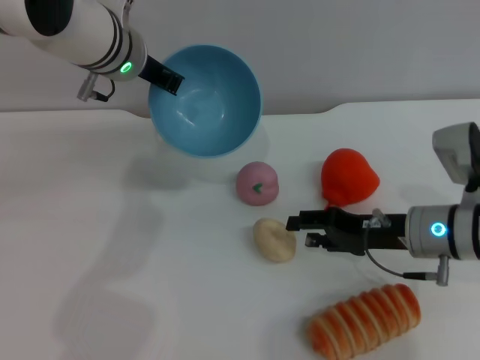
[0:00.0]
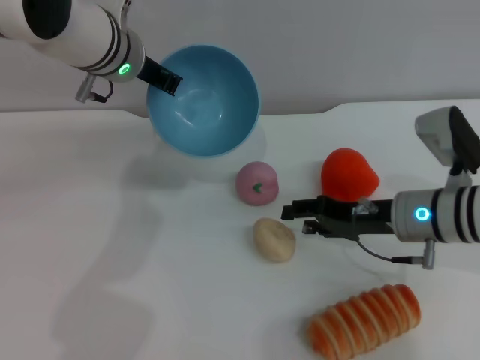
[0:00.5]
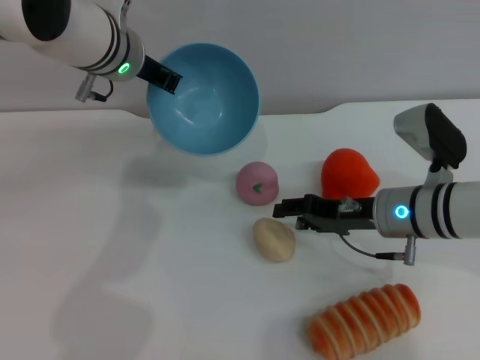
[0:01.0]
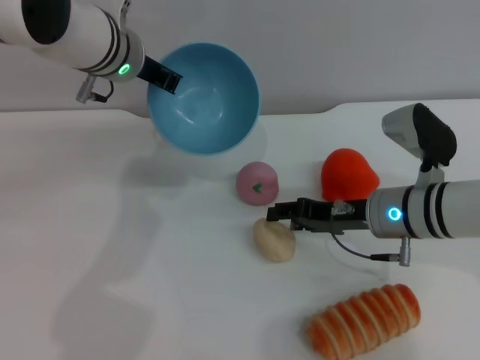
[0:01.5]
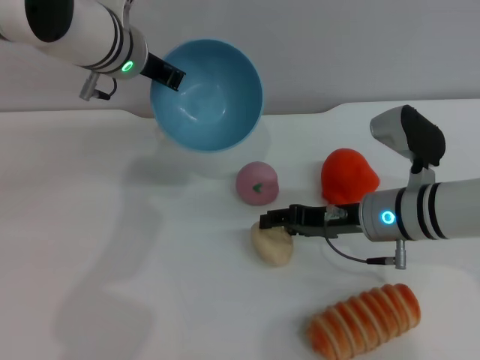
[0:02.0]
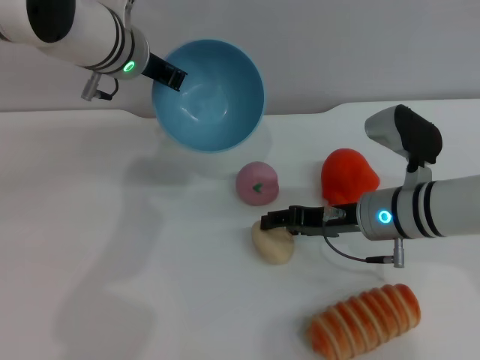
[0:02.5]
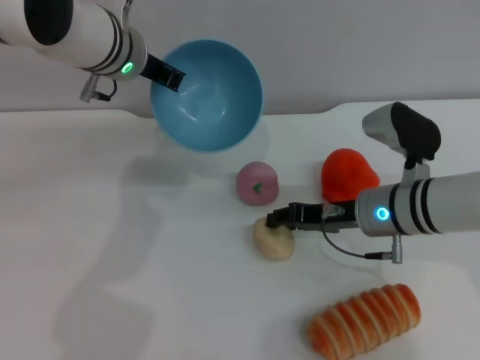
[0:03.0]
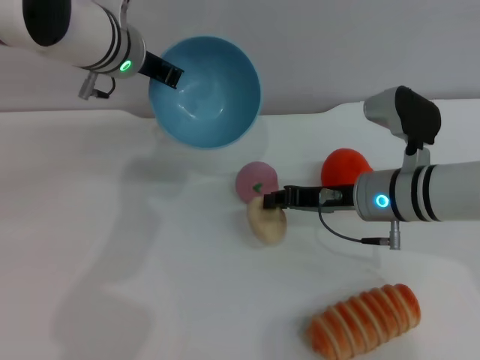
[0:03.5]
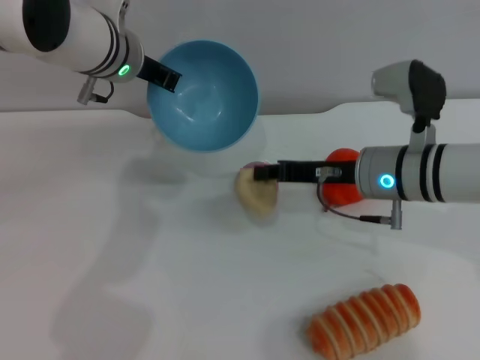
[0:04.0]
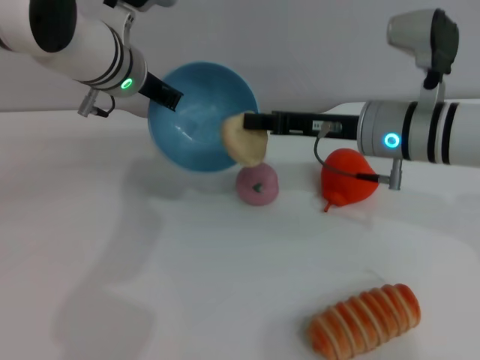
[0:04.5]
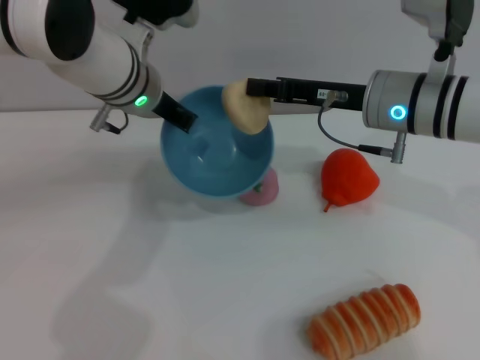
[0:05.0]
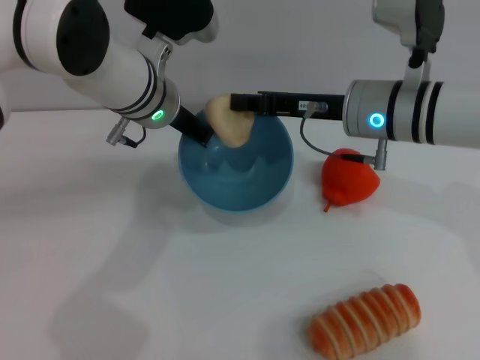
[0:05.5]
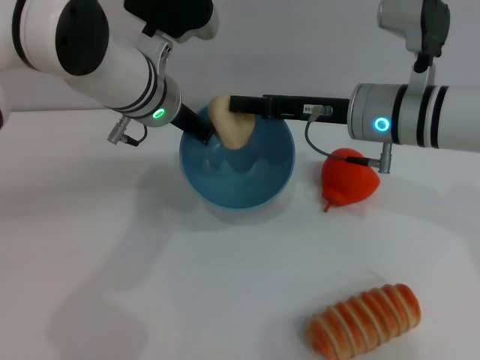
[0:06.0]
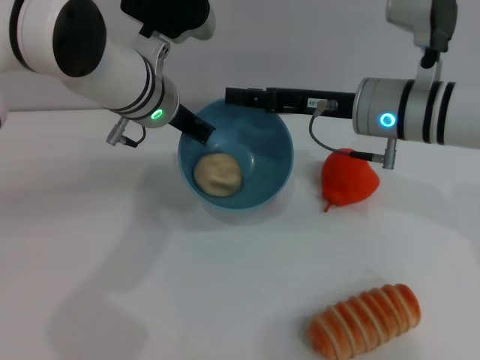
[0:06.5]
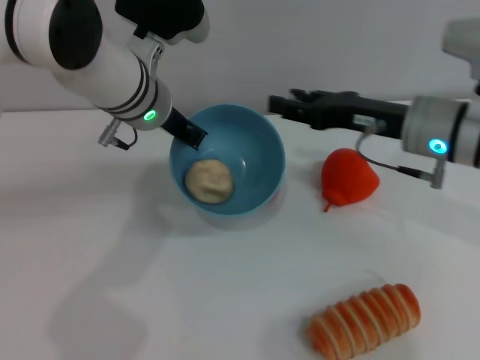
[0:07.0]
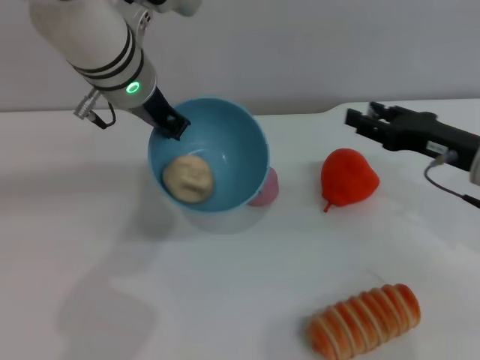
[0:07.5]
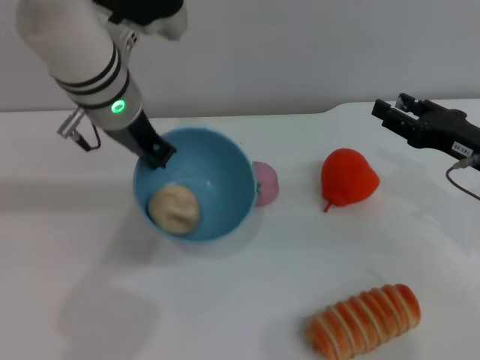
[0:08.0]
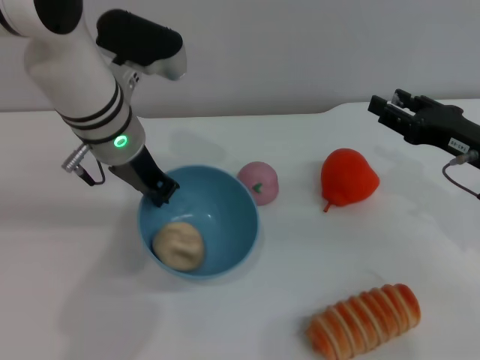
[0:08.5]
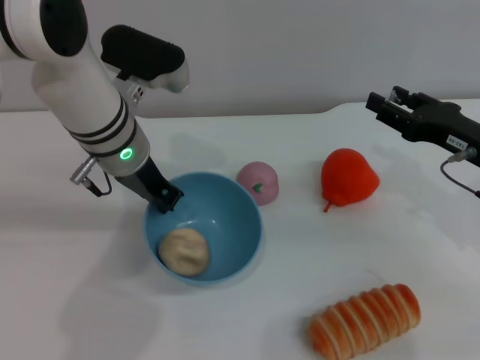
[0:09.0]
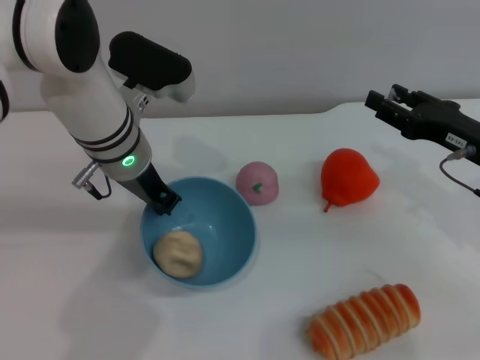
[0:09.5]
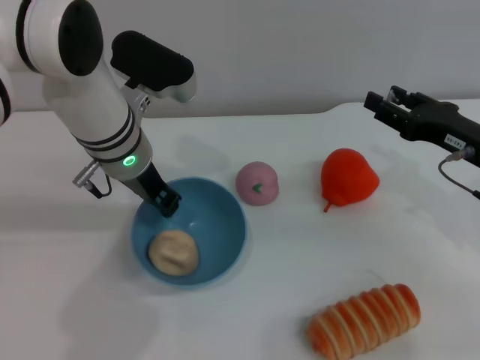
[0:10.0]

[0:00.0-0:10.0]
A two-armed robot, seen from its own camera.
Task of the whole recording: put the egg yolk pastry into the blue bowl and pour it out repeatedly.
Step, 0:00.0 to 0:04.0: Pick up the egg yolk pastry with the right gripper.
Step, 0:04.5 to 0:06.5: Place the egg yolk pastry into the bowl.
0:00.0 to 0:02.0: The right gripper moves about 5 cm.
0:02.0 to 0:04.0: The right gripper closes.
0:04.0 to 0:06.0: The right gripper moves some 5 cm; the left gripper changes place by some 5 cm.
0:06.0 to 0:08.0: The right gripper is displaced to the right and backward by approximately 15 cm, and opens its fingers.
0:08.0 to 0:10.0: The left gripper goes roughly 5 cm downward.

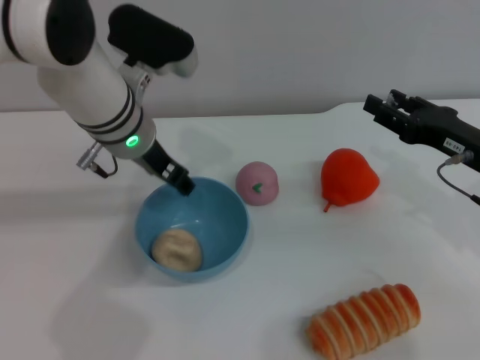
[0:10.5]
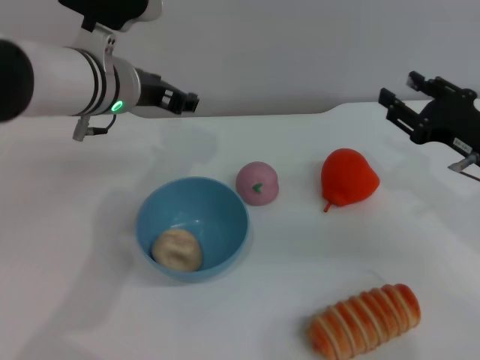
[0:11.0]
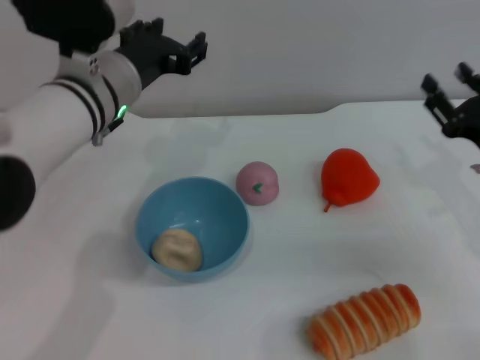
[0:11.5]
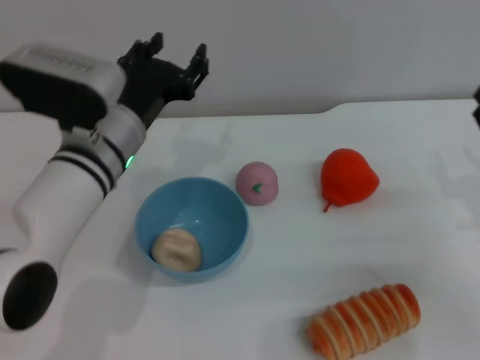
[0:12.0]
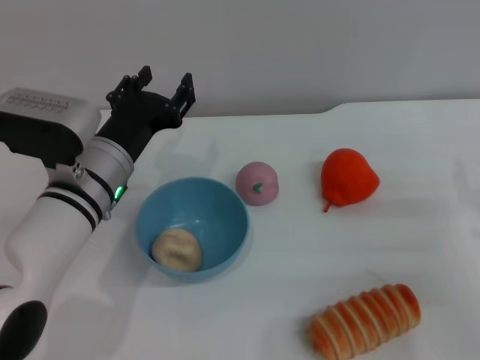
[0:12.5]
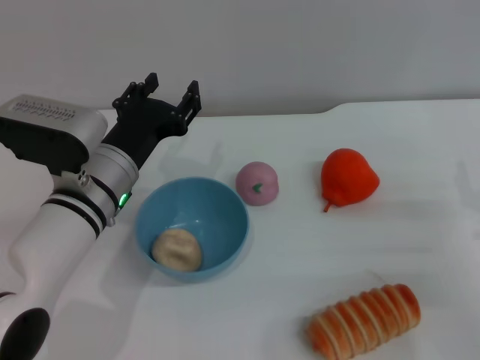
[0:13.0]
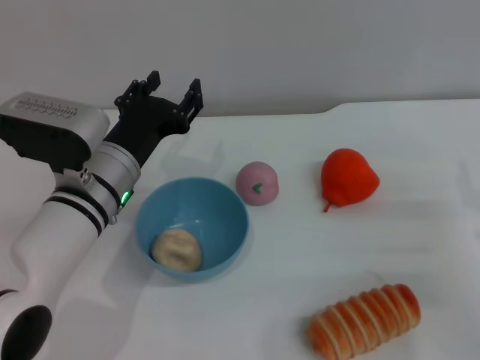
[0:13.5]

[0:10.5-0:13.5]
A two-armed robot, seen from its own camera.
Task of the whole recording: put the egg yolk pastry into the blue bowl and pour it out repeatedly.
0:10.5 to 0:12.0: The grippers both shift backward by roughly 5 cm.
0:12.0 to 0:13.5: There are only small adjustments of the grippers.
